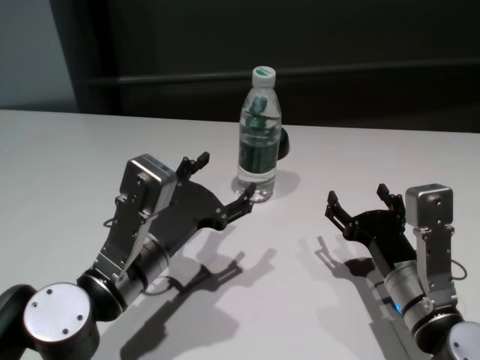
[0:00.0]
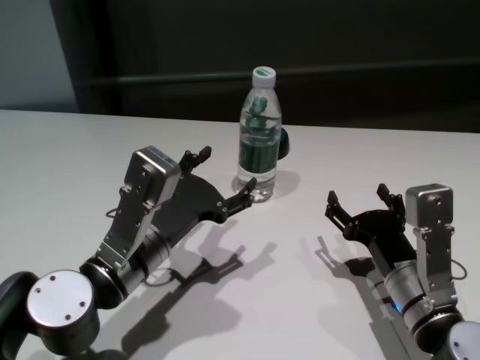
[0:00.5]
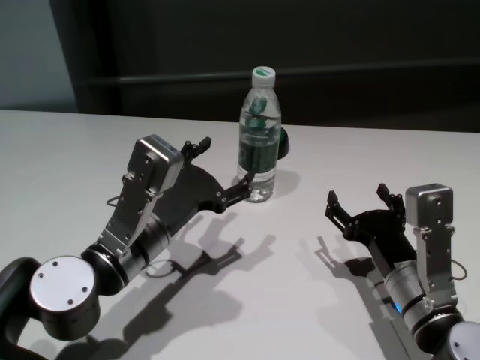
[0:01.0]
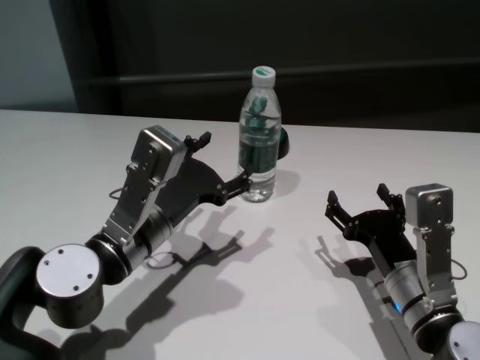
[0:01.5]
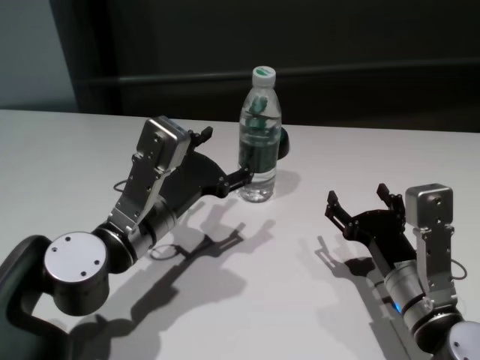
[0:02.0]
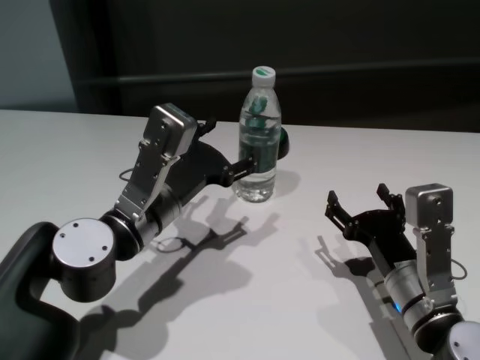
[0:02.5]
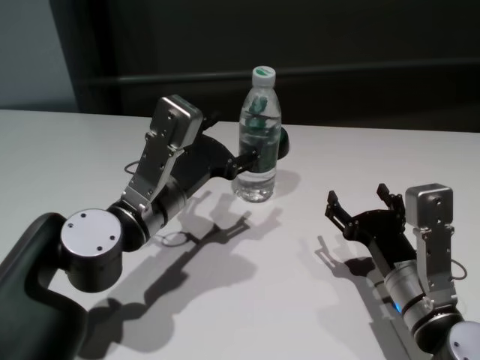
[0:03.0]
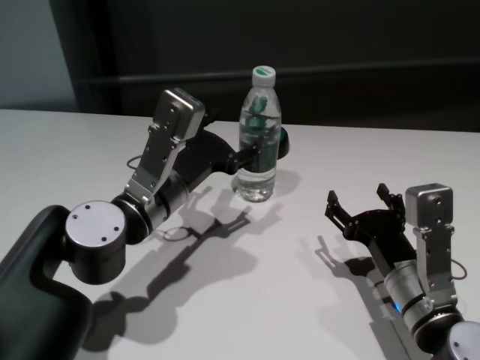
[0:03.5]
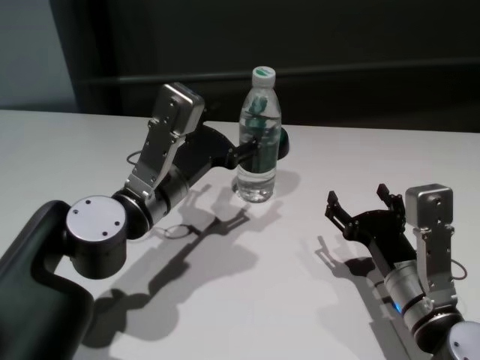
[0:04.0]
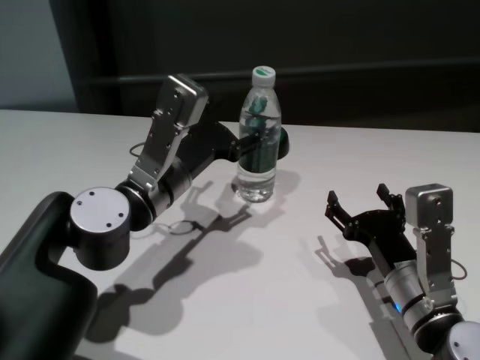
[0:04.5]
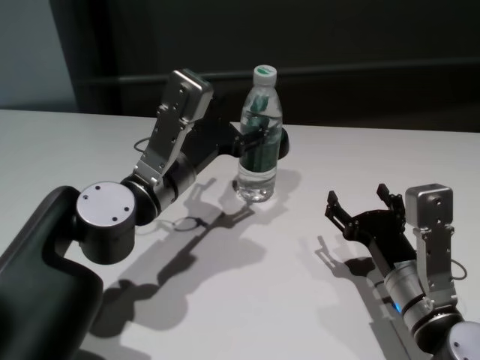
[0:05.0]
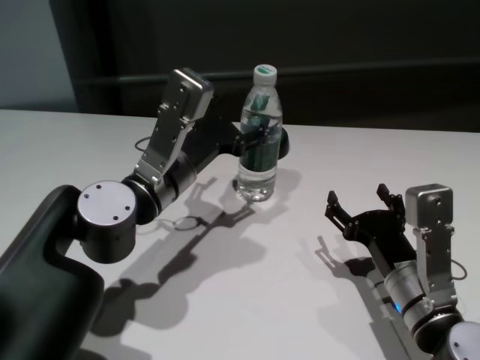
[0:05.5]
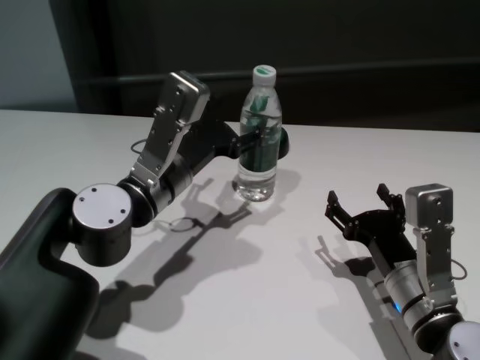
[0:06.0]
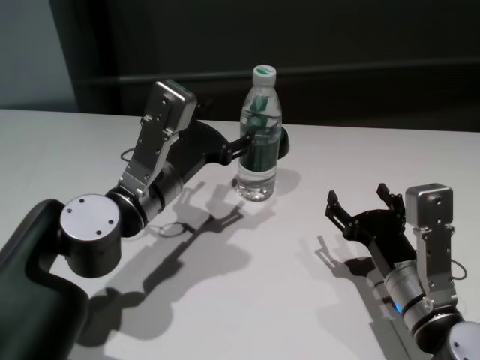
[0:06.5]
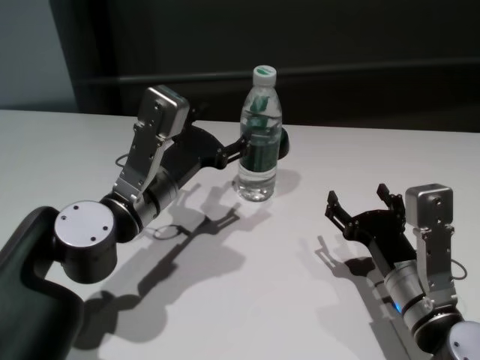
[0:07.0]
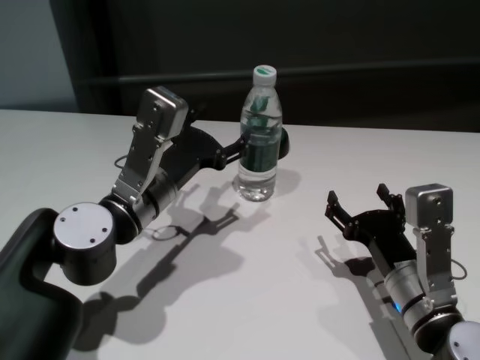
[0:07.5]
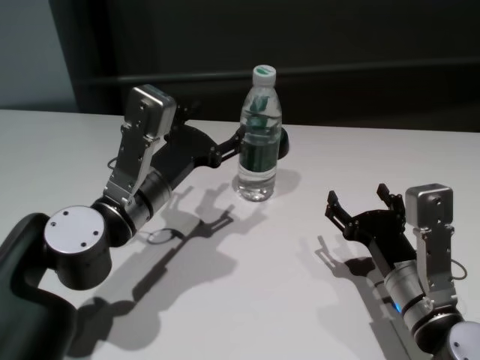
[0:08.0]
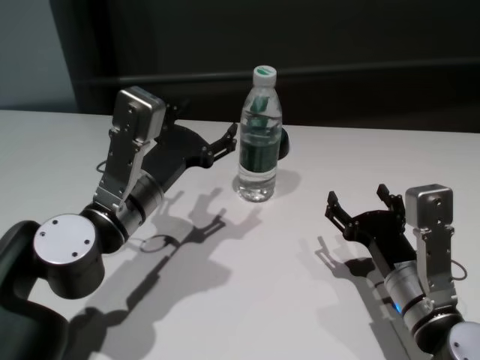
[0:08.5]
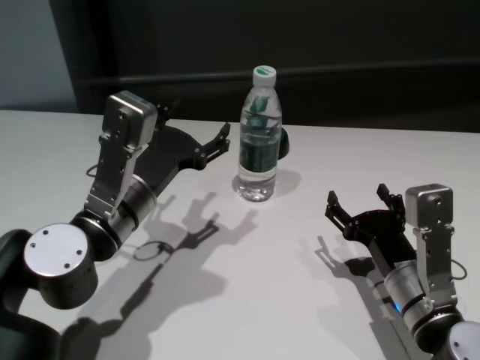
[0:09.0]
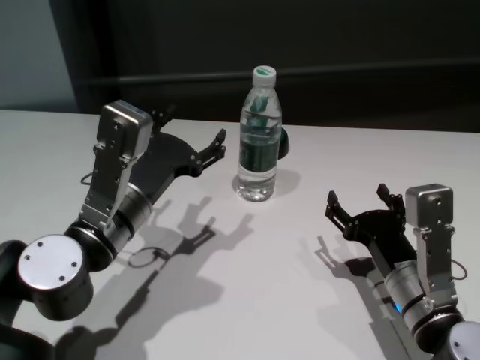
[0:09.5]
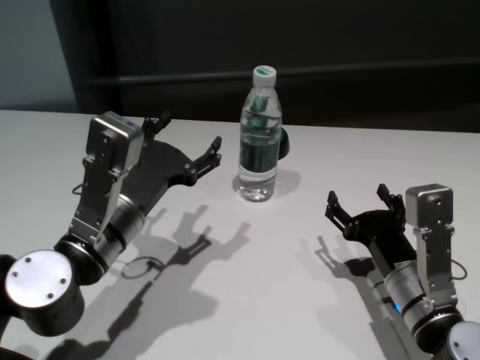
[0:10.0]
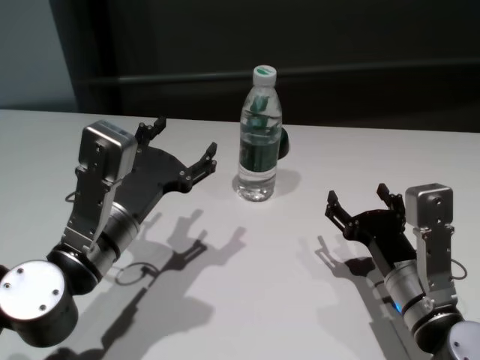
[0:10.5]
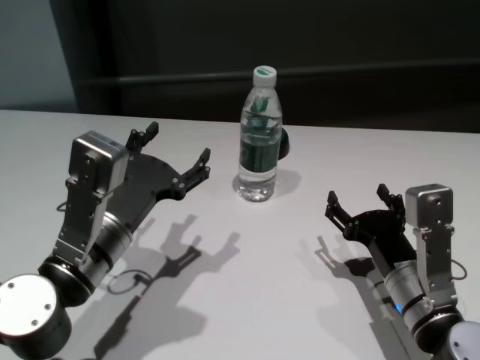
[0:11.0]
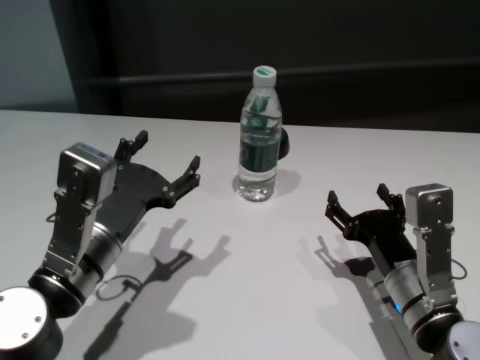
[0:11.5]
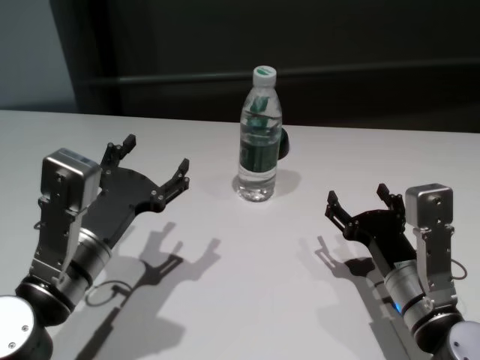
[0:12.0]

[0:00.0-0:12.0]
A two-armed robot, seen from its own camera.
Task of the whole recording: return to a safe position after touching an obstacle with your arm on the white table.
Step, 0:00.0 to 0:08.5: Touch the bottle with left gripper.

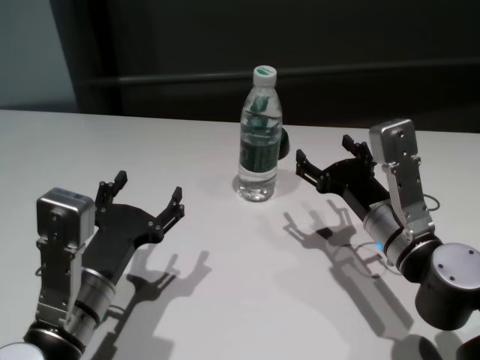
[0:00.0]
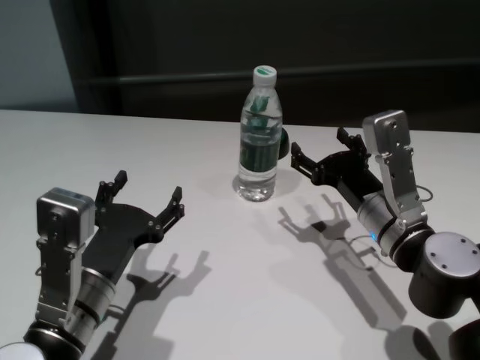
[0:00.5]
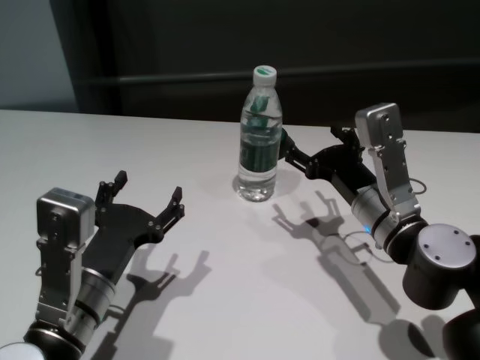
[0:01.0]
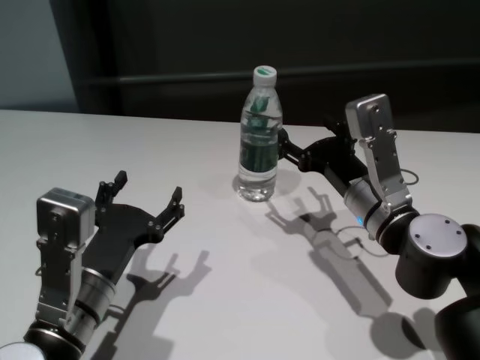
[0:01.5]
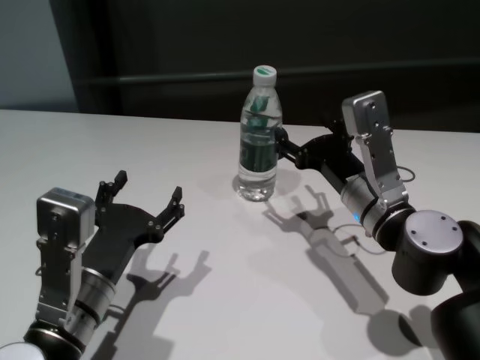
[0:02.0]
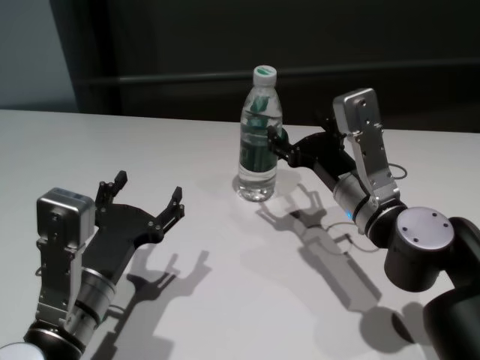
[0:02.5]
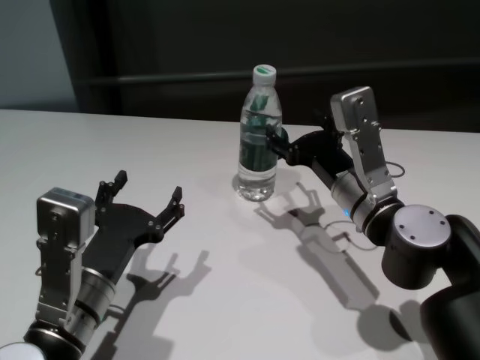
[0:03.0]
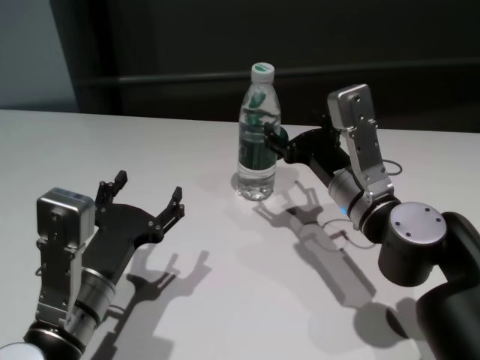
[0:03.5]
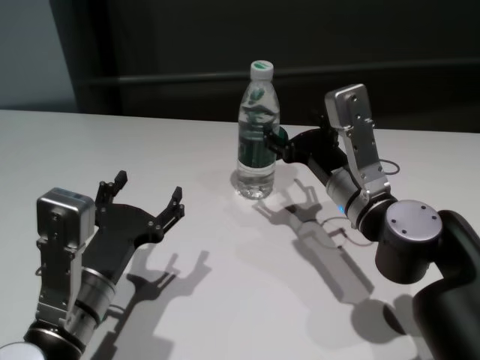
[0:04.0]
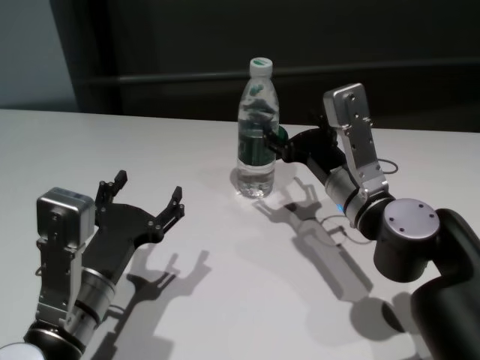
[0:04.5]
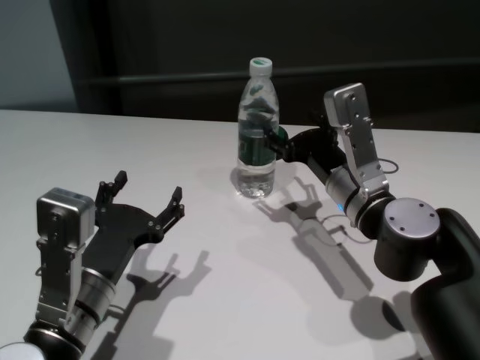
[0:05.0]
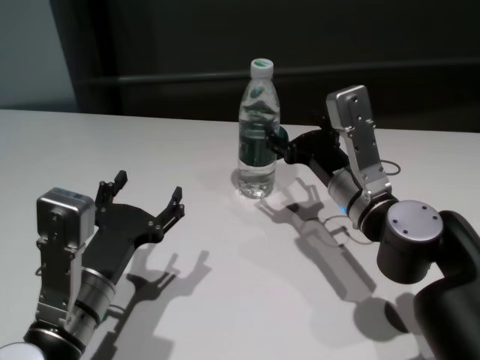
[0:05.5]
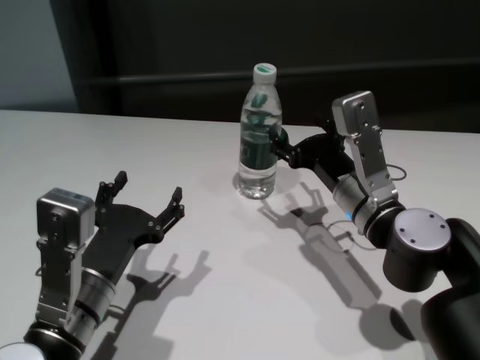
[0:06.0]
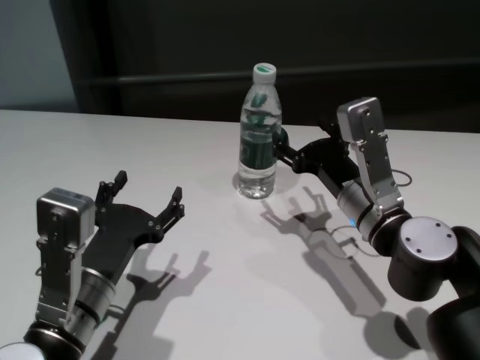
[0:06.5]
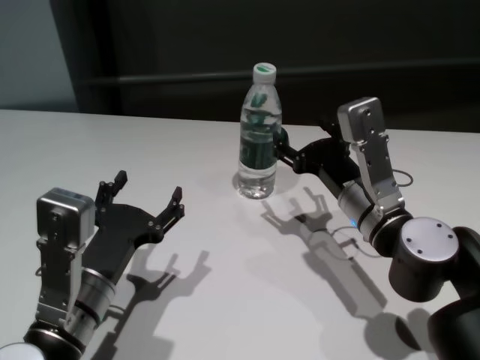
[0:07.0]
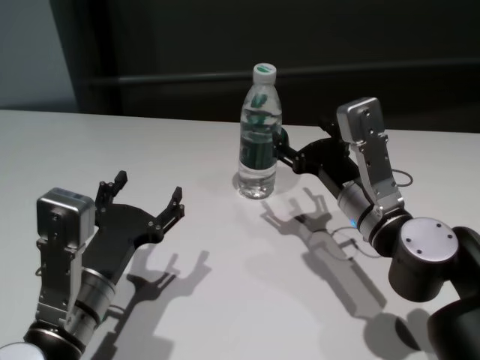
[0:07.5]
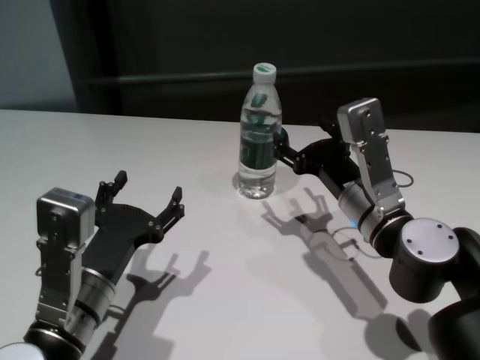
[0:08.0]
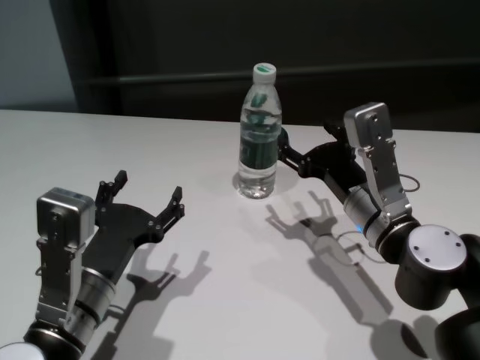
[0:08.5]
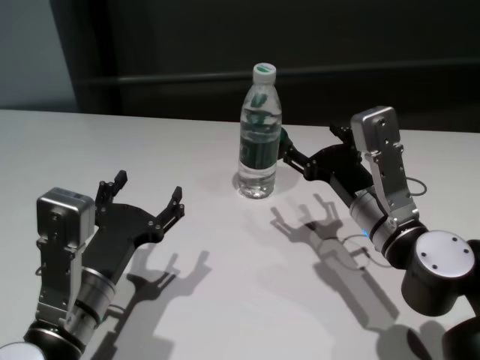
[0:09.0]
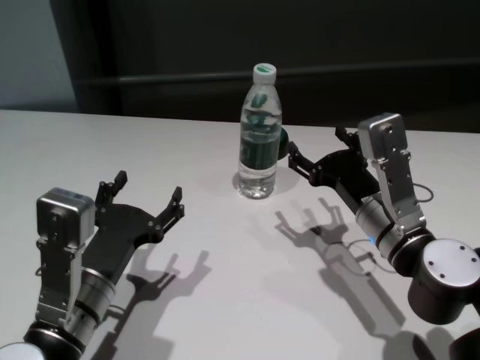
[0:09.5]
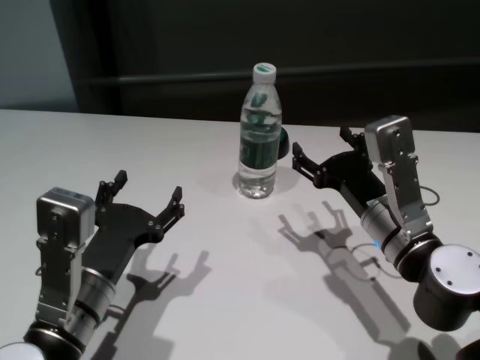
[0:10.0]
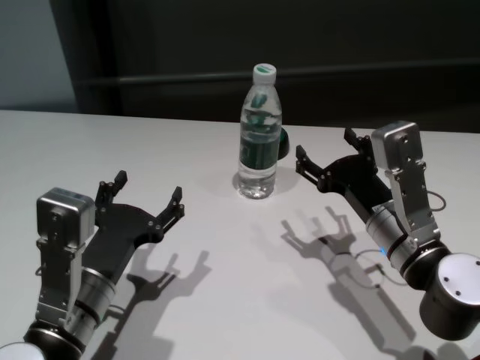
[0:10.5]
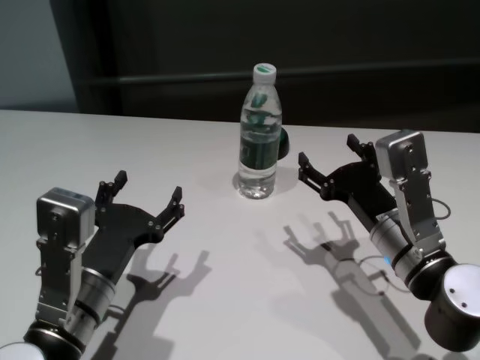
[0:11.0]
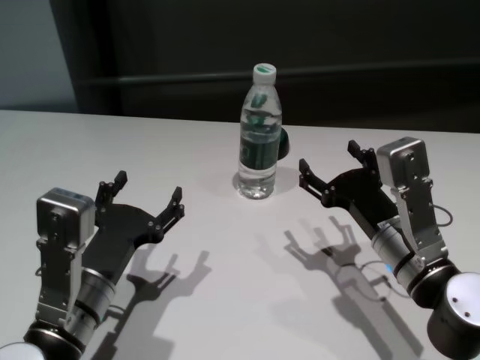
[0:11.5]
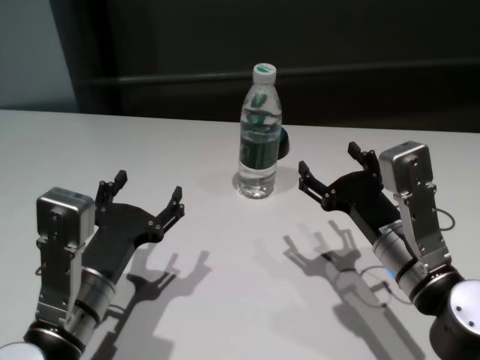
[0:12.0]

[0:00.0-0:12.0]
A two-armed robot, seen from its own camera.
Task of the whole recording: return to a safe position after touching an obstacle with your arm on the white table.
Step, 0:00.0 to 0:09.0: Touch the bottle with right gripper.
